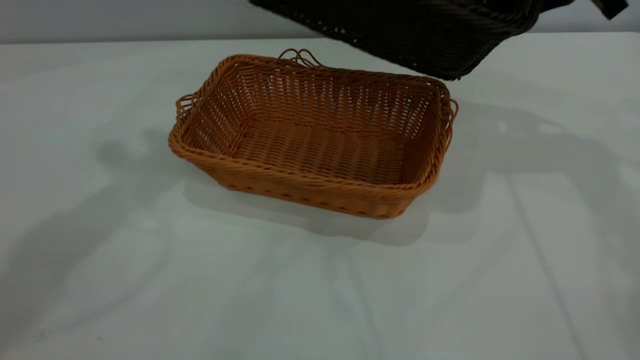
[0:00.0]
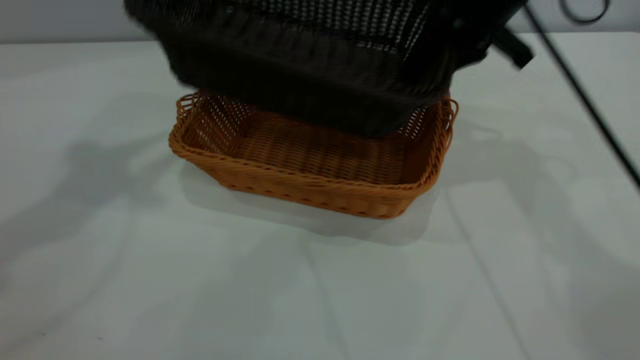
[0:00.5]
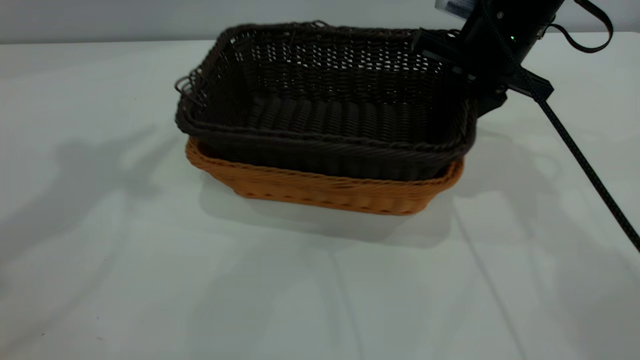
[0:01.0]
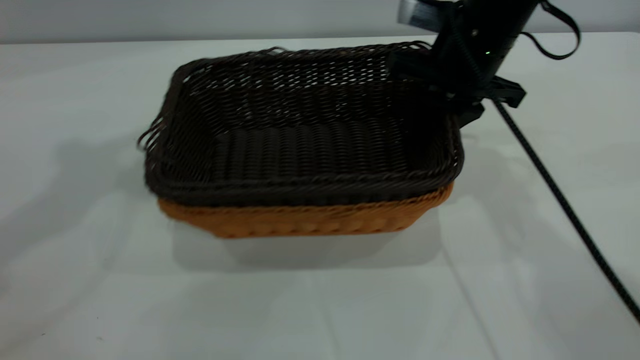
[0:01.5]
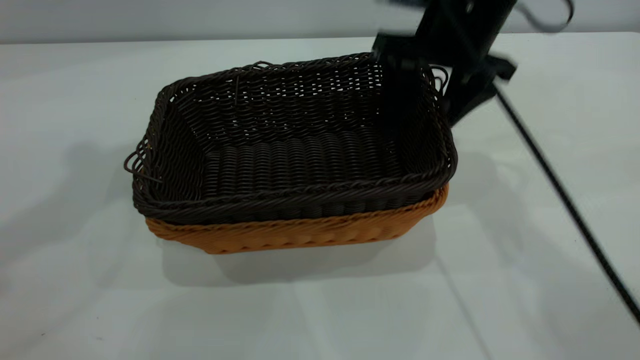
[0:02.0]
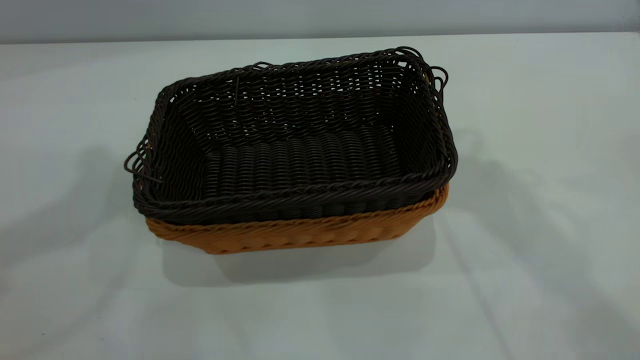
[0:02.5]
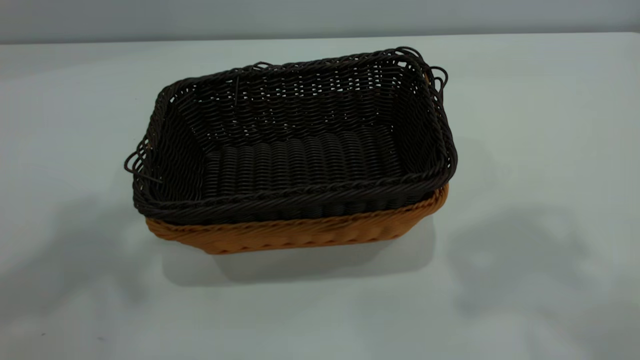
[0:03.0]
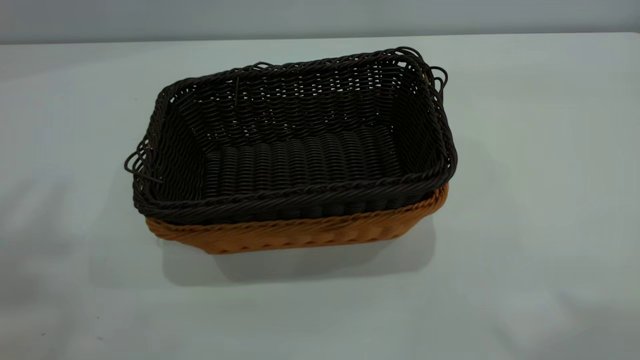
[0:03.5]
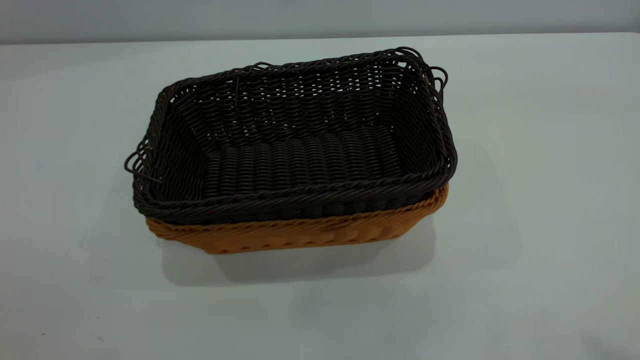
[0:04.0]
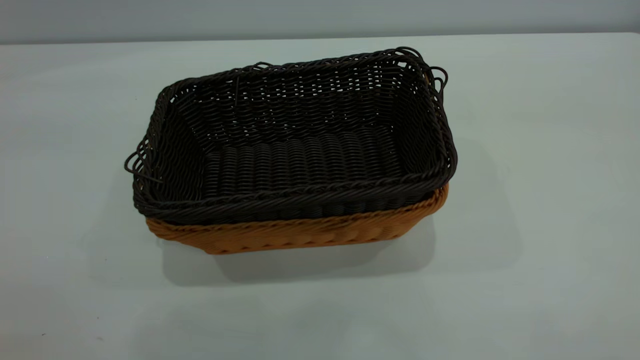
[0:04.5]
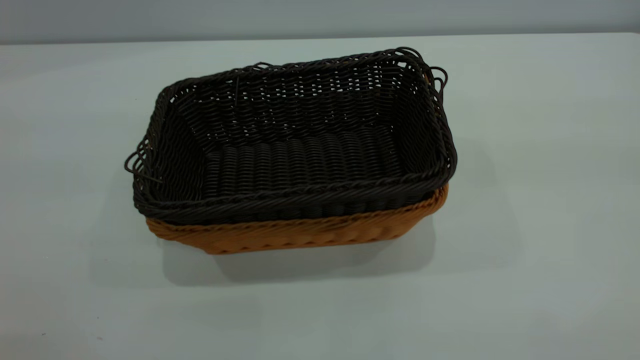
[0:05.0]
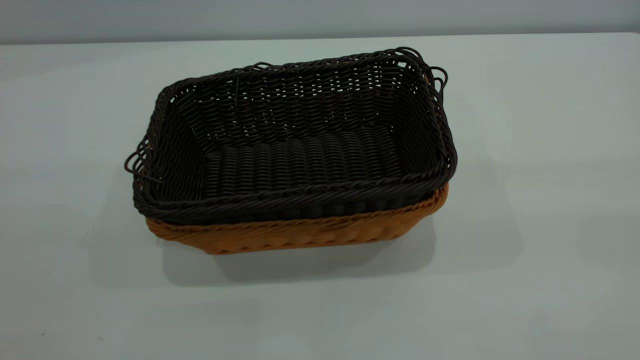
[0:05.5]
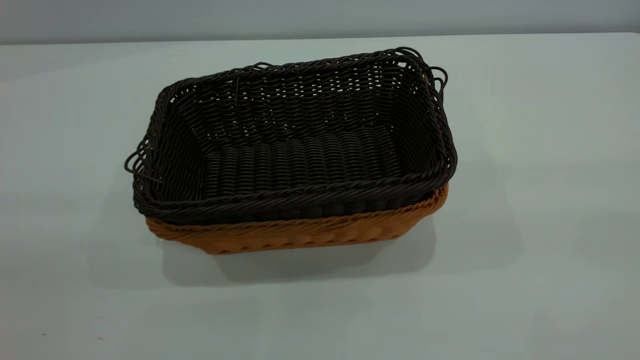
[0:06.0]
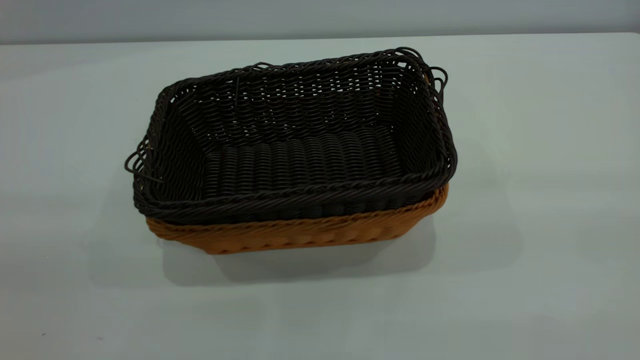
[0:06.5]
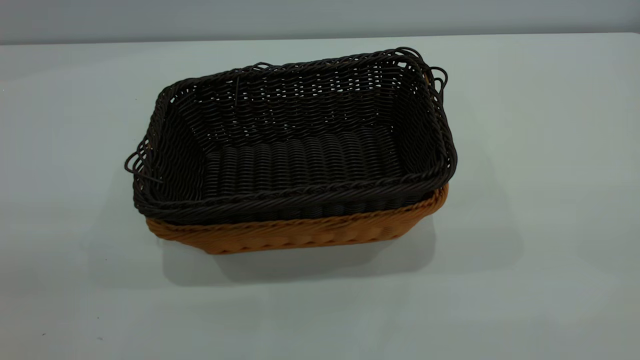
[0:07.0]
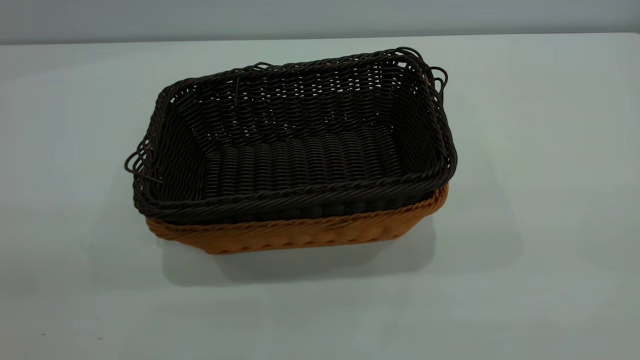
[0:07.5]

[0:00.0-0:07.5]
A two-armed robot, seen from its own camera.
Task of the whole recording: the left gripper grasp the brown basket and place it in the center of the table, the right gripper grasp the black basket and place it inside the brown one.
Step, 0:00.0 to 0:02.0: Place the dark basket on top of the light basket.
0:00.0 to 0:02.0: The left gripper ends up some 5 cm from where it was. Meanwhile the right gripper travels to the left by about 10 cm, and opens.
0:02.0 to 0:04.0: The left gripper travels backward, to the left and upward by some 20 cm. The right gripper shifts roughly 50 cm upward and backward.

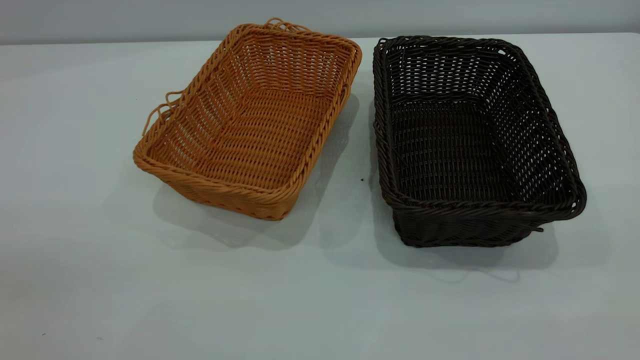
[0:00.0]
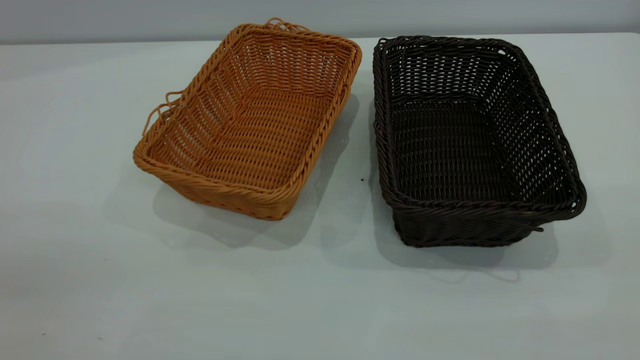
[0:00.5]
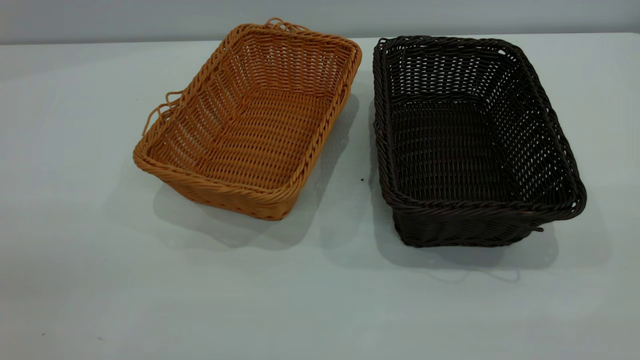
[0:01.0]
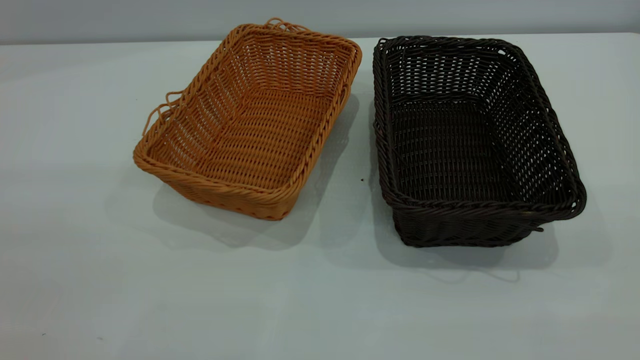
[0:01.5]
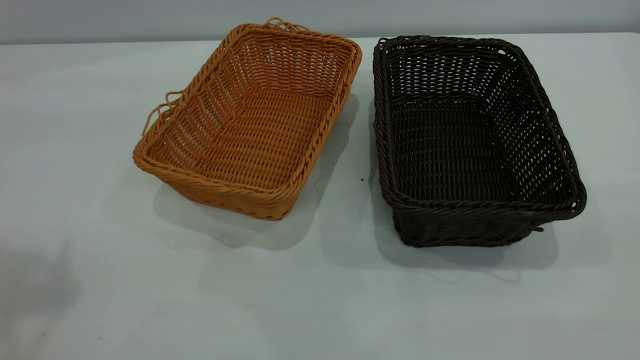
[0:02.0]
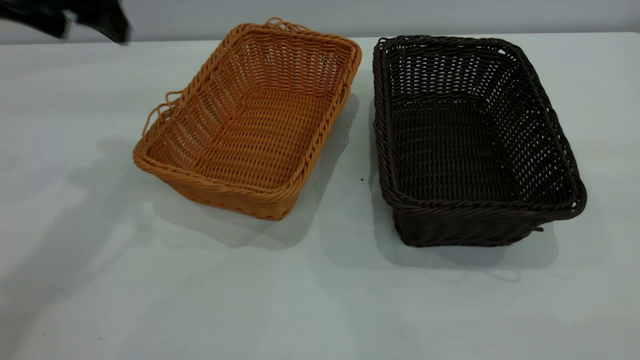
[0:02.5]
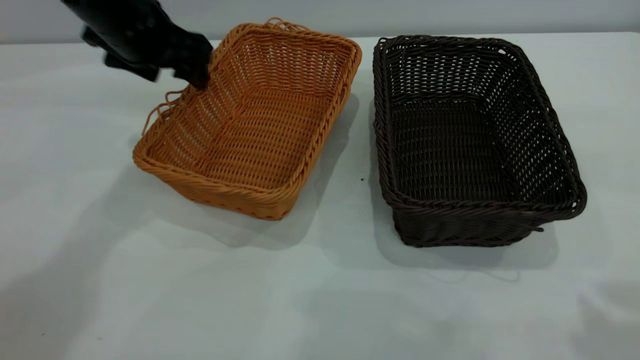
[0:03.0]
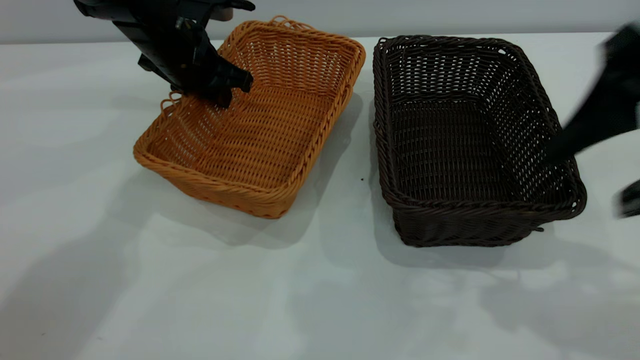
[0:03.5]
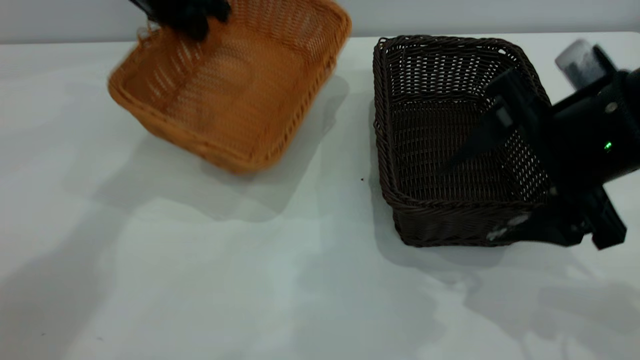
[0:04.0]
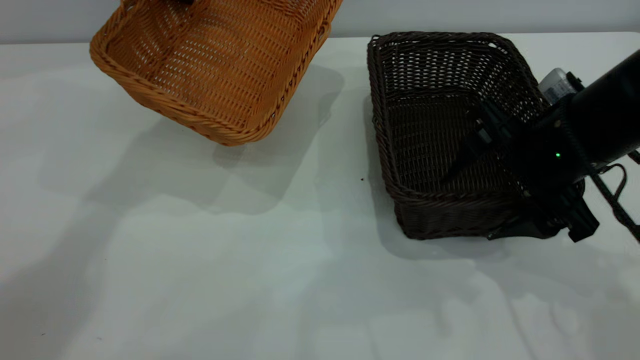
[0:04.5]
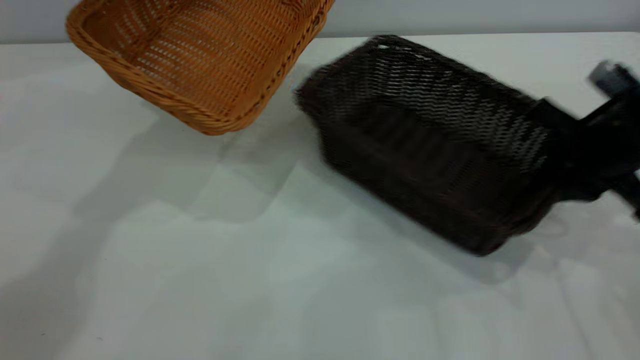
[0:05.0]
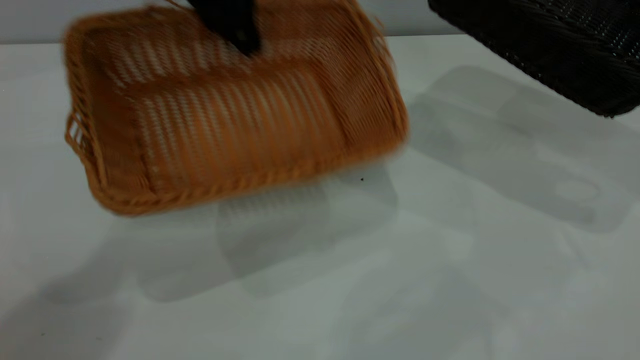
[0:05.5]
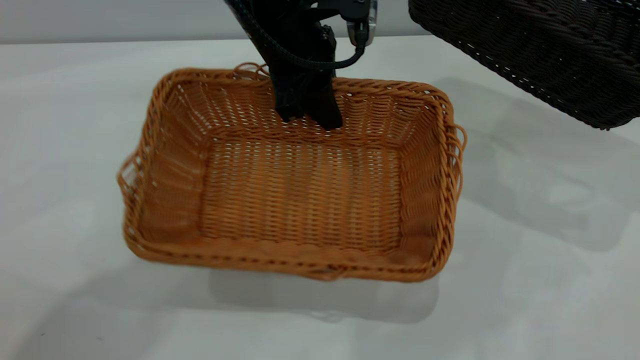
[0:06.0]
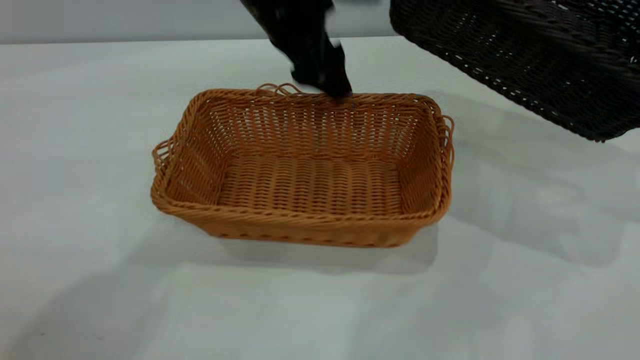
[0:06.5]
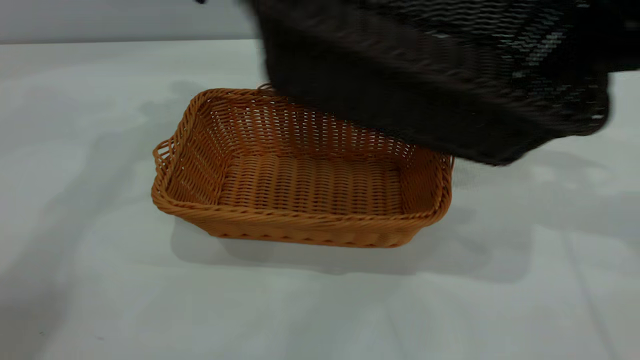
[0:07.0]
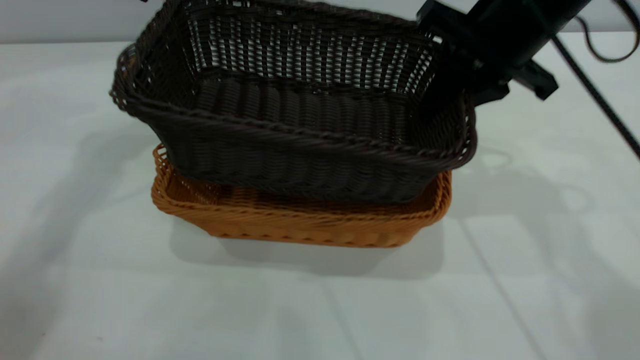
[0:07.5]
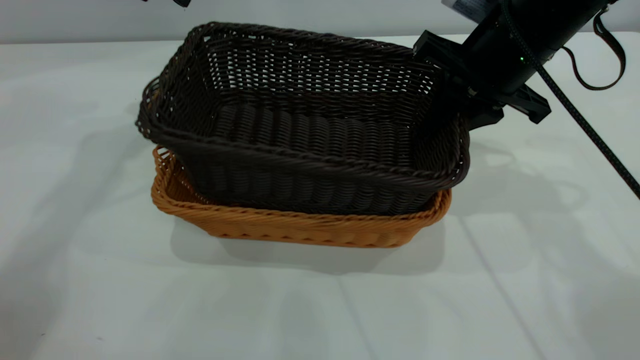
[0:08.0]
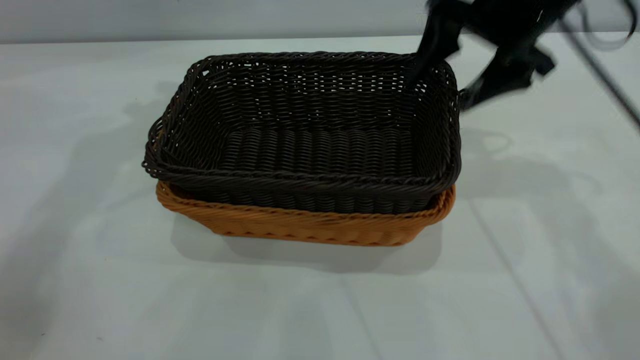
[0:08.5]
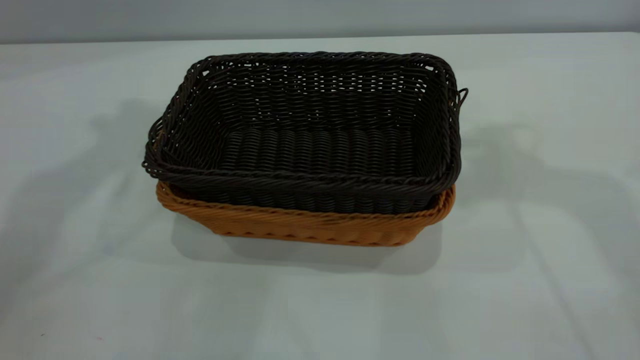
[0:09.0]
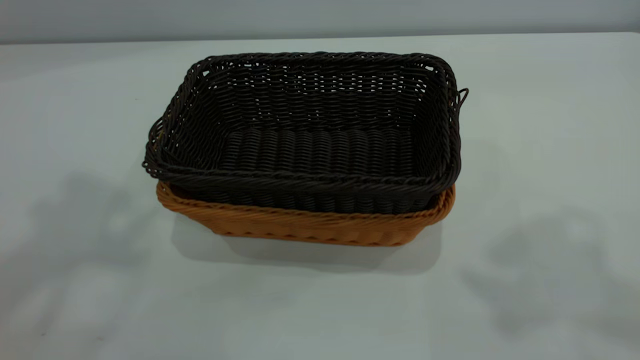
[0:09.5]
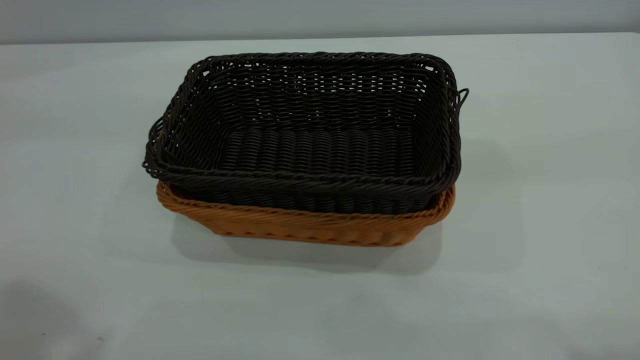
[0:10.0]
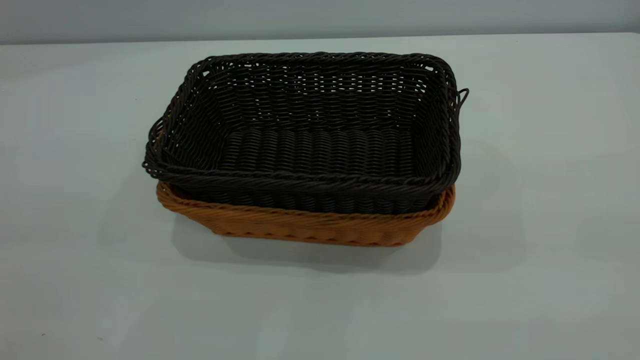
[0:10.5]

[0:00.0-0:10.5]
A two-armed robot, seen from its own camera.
Task of the whole recording: the left gripper grasp the brown basket and place it in the center of the table, the right gripper grasp the black basket and place it inside the brown one.
Step, 0:00.0 to 0:05.0: Pick up the light basket with the right gripper.
Step, 0:05.5 to 0:06.5: Place the light-colored basket in the center.
Step, 0:07.0 to 0:08.5: Place the dark basket on top of the light basket.
0:02.0 to 0:04.0: The right gripper goes some 30 cm forward and downward, while the left gripper heads forward, downward and to the right, covering approximately 35 cm, and closes.
0:04.0 to 0:06.5: The right gripper goes some 20 cm to the right and forward, and closes; the left gripper goes about 15 cm to the right and backward, and opens.
0:06.5 to 0:08.5: The left gripper heads to the left and upward, covering some 20 cm; the right gripper heads to the left, covering roughly 20 cm, and opens up.
0:08.5 to 0:10.5: The right gripper shifts about 40 cm backward and upward, while the left gripper is displaced backward by about 40 cm.
